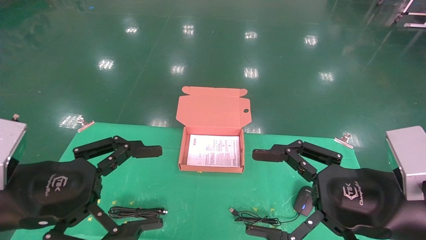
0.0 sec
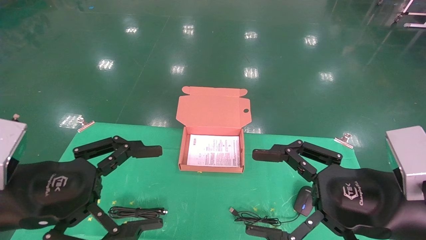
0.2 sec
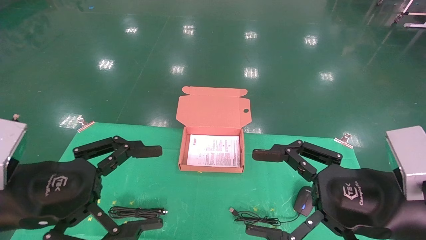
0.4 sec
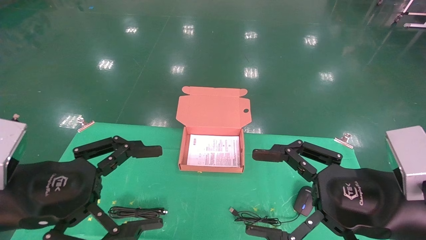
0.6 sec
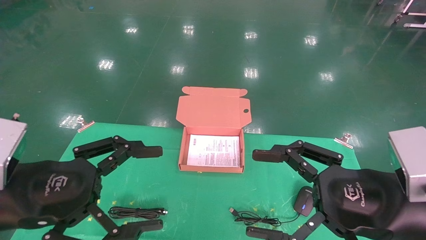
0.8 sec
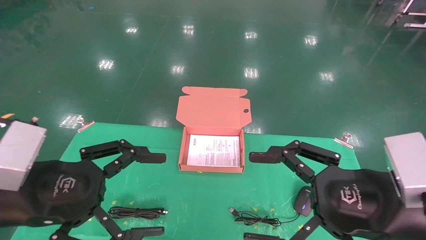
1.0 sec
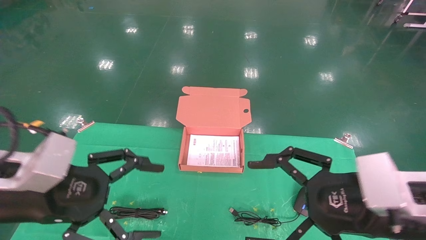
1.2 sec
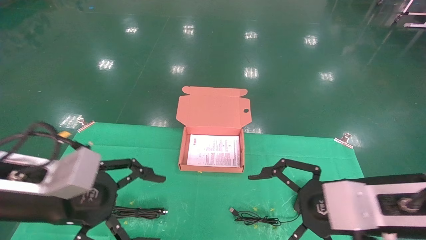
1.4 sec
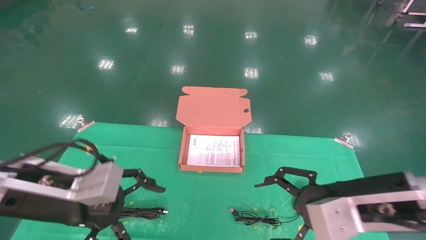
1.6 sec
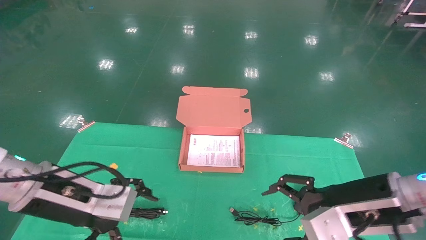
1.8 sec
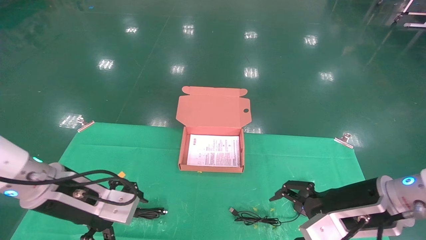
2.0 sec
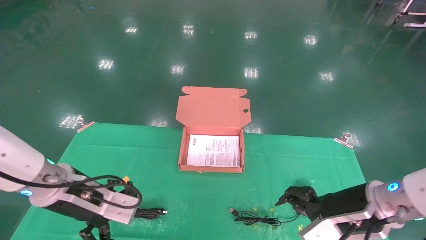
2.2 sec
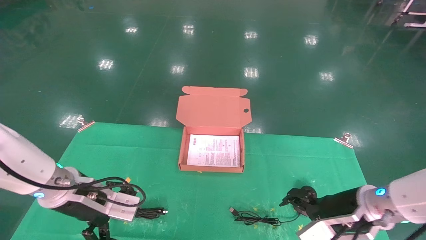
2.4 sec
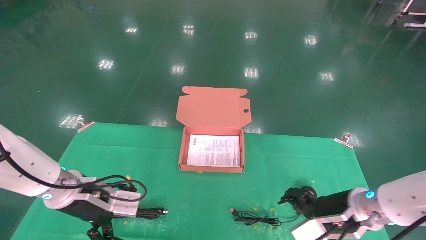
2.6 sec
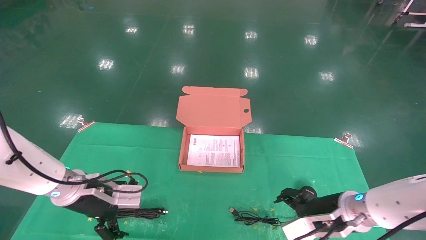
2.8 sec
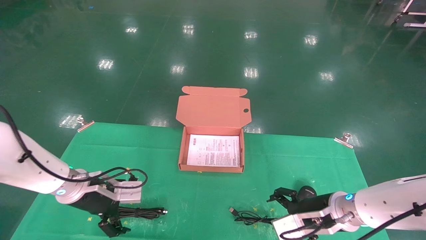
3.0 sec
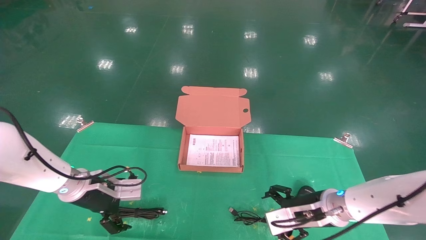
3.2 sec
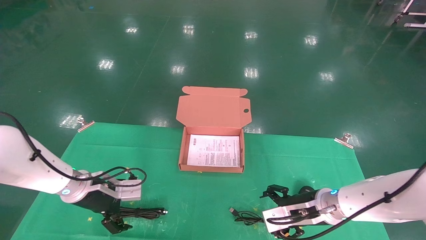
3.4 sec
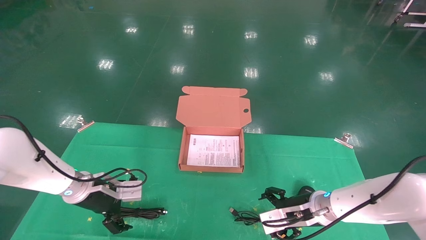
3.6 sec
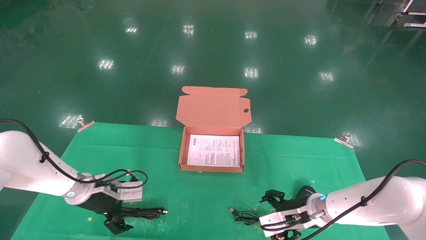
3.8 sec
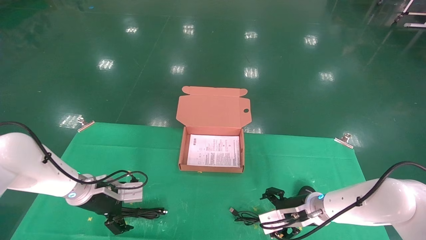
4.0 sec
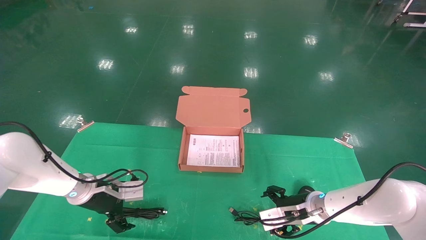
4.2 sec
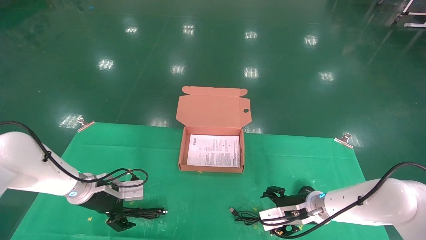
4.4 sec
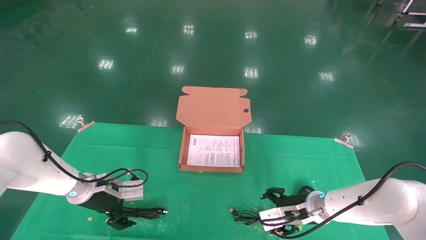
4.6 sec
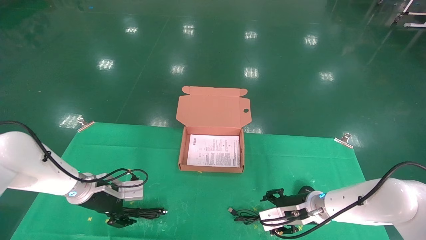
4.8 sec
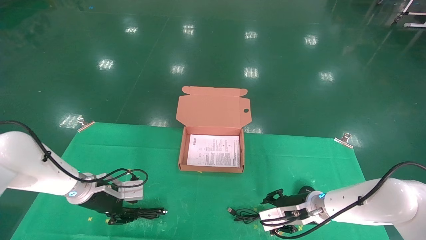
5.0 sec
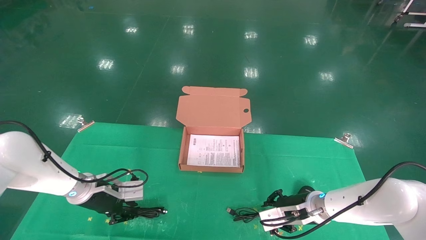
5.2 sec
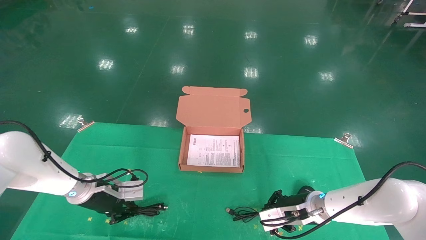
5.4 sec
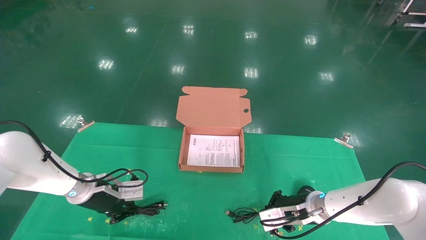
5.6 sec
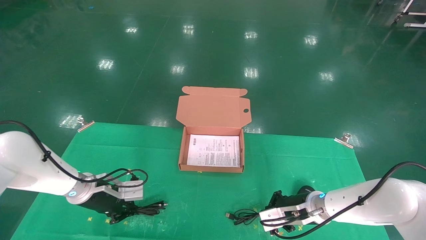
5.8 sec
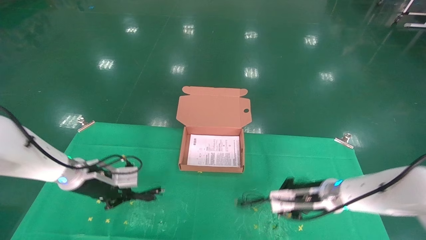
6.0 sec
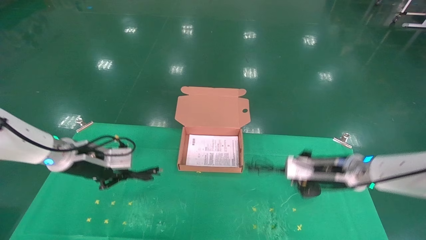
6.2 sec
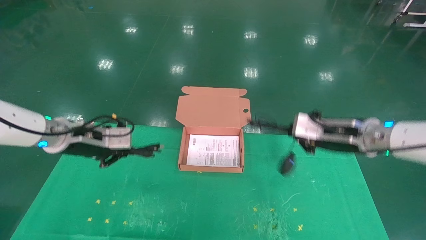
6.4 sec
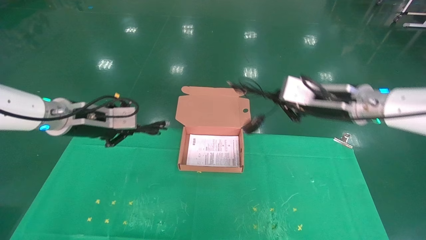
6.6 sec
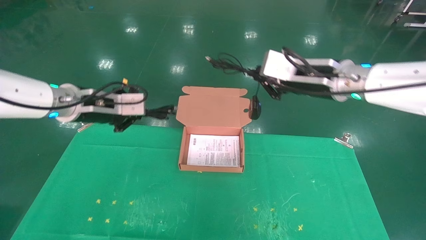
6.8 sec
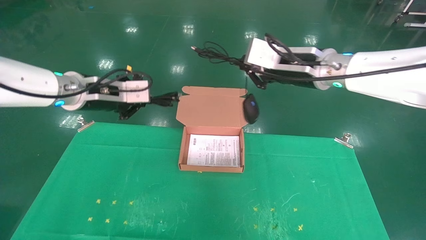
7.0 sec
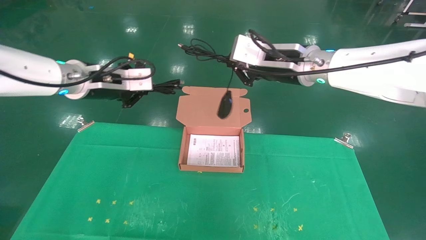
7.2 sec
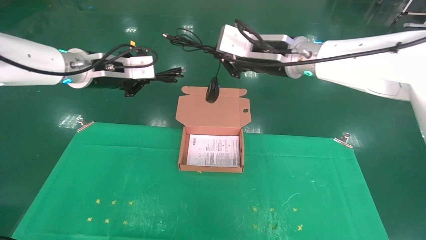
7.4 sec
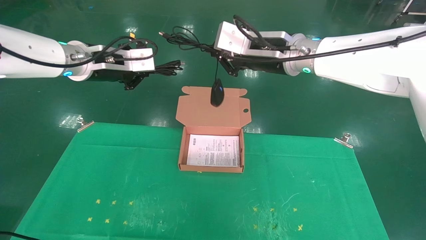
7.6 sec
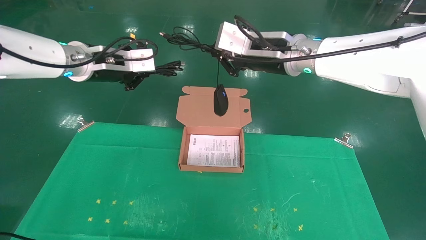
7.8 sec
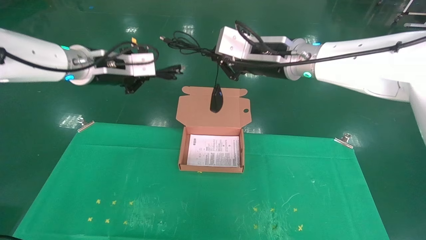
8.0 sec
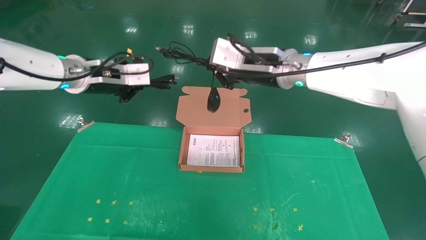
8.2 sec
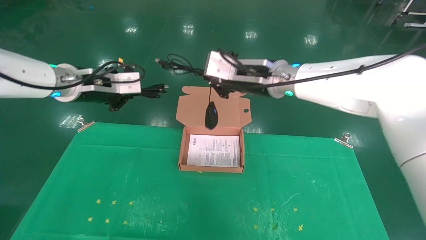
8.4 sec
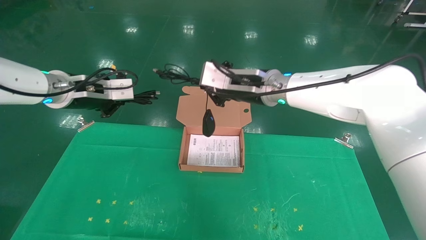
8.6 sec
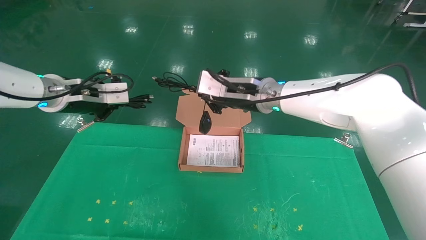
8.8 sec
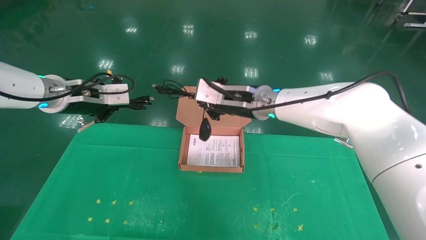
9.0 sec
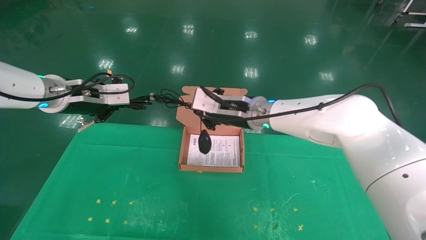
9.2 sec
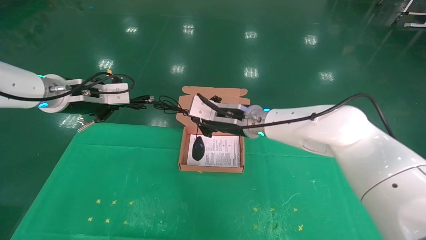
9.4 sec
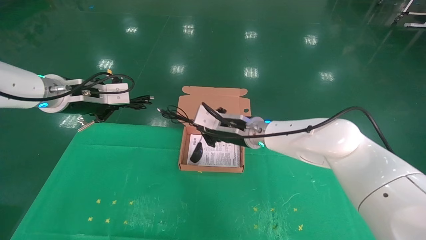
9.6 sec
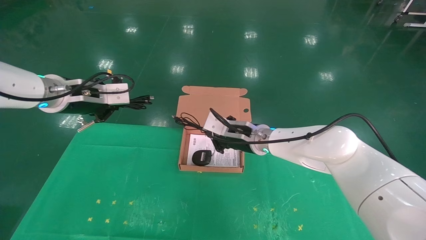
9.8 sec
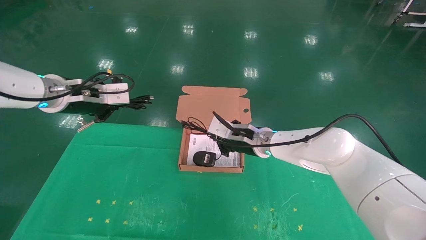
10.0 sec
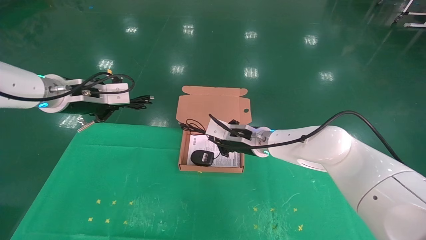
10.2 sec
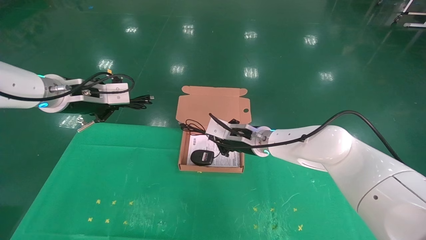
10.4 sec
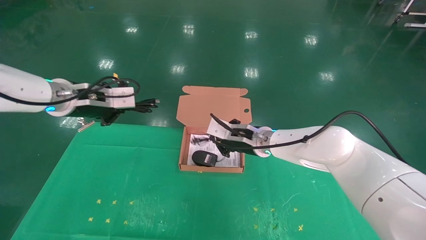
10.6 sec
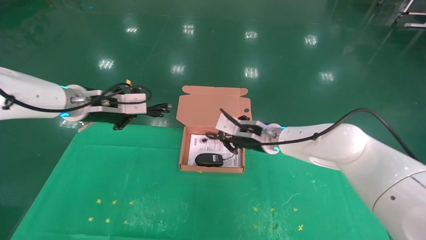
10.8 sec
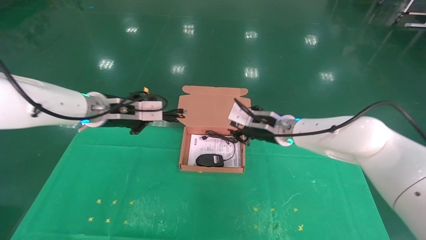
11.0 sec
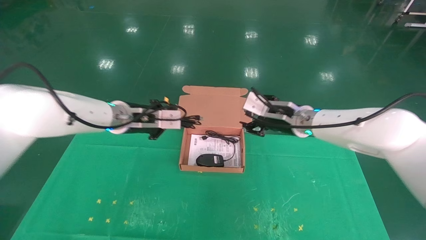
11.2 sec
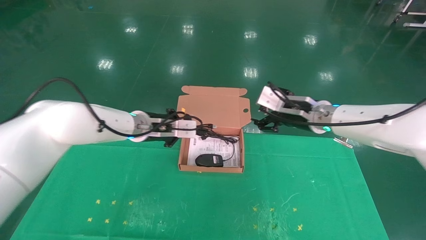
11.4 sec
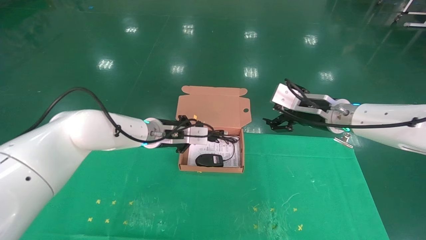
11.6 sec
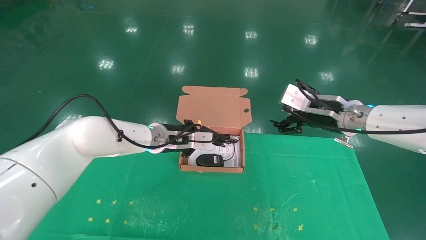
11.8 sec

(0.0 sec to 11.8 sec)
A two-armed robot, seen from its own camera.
Task of the whole recording: grasp data cable left put into box grasp mouse right put into box.
Step, 1.2 sec - 6.6 sec: Grab and pick up both the mouse and power cord from the accessory packaging area at the same time.
0.0 sec - 1.4 sec: The left gripper moves approximately 5 cm.
1.4 sec - 3.0 sec: The two grippers go some 15 cm forward and downward.
3.0 sec - 4.4 sec: The right gripper heads forward and downward, covering some 10 cm, while the left gripper moves approximately 5 cm.
4.4 sec - 6.0 sec: Both grippers move upward, about 5 cm. The right gripper closes up; the left gripper closes.
6.0 sec - 7.4 sec: The left gripper shifts roughly 20 cm upward. The right gripper shifts about 30 cm upward and to the left.
7.4 sec - 8.8 sec: The right gripper travels downward by some 5 cm, while the left gripper moves about 5 cm.
8.8 sec - 10.4 sec: The right gripper shifts roughly 15 cm downward.
10.4 sec - 11.8 sec: The left gripper travels to the right, downward and forward by approximately 20 cm. The right gripper moves to the right and upward, some 20 cm, and opens its fingers.

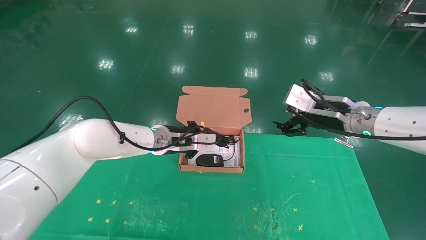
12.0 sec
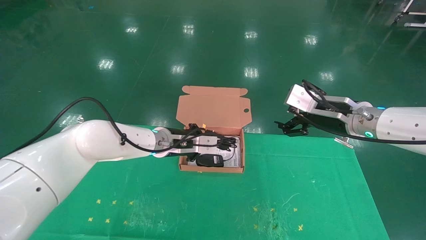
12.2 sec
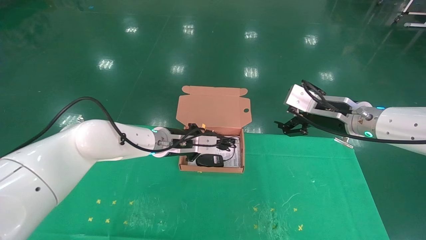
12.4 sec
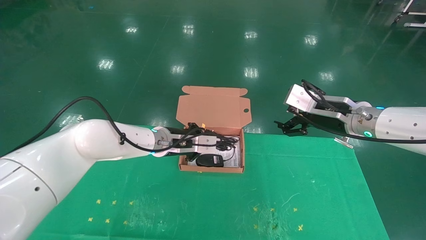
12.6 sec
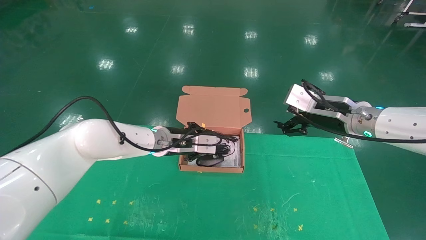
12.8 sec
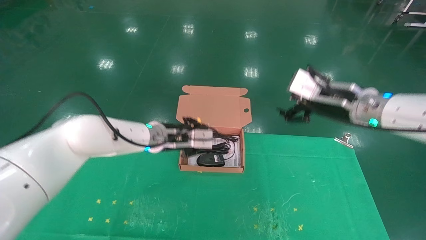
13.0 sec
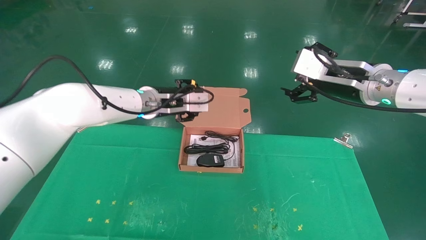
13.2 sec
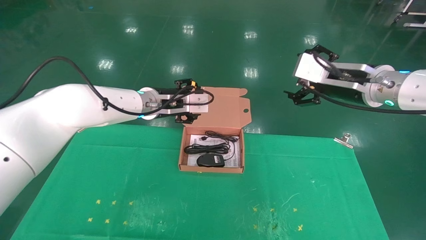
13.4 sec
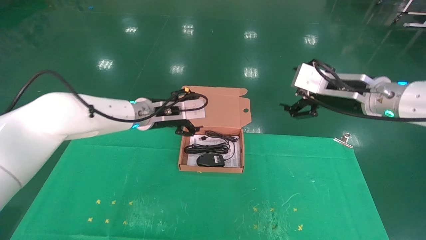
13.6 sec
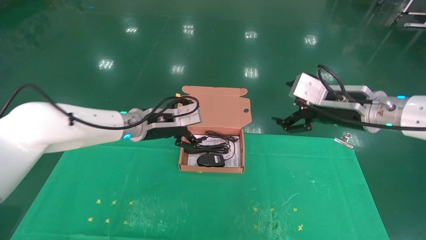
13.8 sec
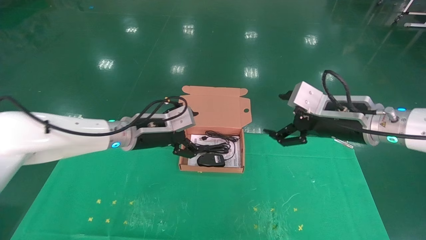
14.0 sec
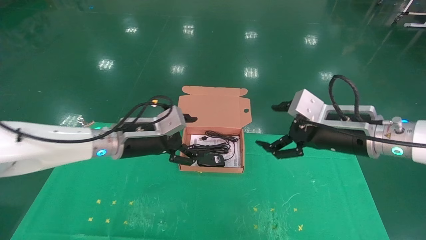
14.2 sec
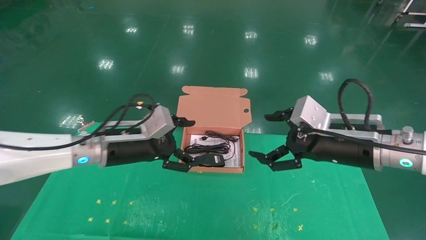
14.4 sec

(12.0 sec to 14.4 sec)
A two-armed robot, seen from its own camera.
Task of the whole recording: grasp data cable left put into box grasp mouse right put into box.
12.0 sec - 13.2 sec: The grippers both shift upward by some 5 cm. The left gripper opens its fingers.
13.2 sec - 14.4 sec: The right gripper heads downward and backward, covering about 10 cm, while the left gripper moves backward and to the left, some 10 cm, and opens its fingers.

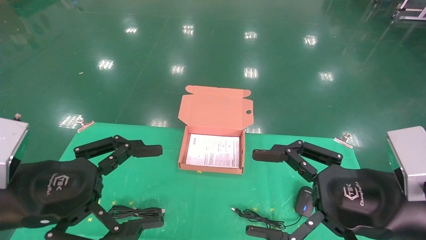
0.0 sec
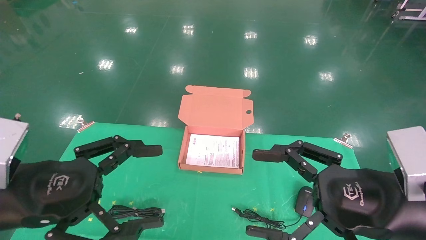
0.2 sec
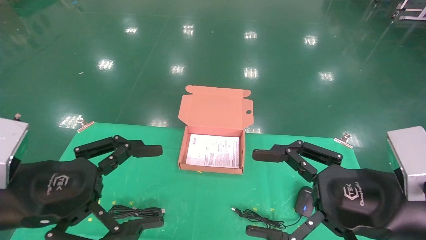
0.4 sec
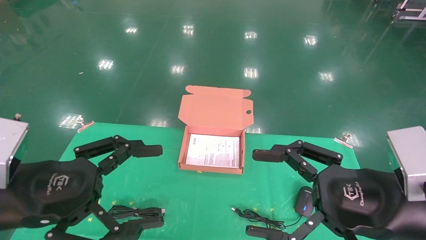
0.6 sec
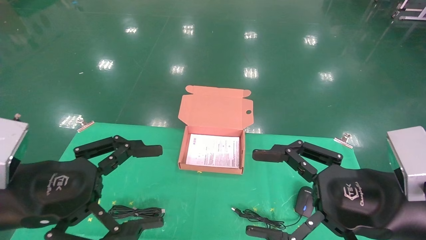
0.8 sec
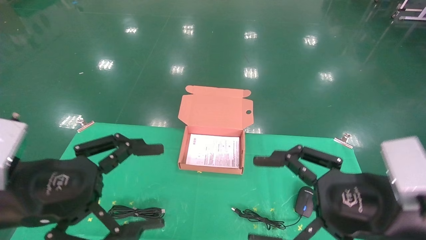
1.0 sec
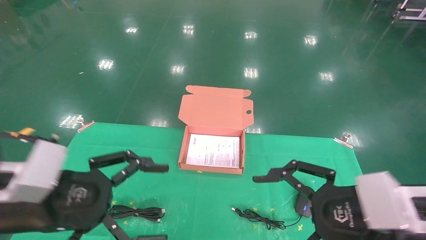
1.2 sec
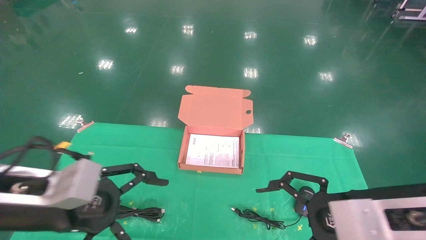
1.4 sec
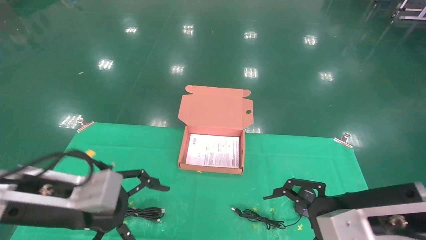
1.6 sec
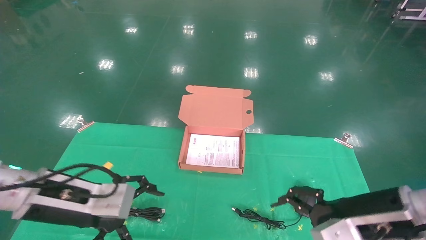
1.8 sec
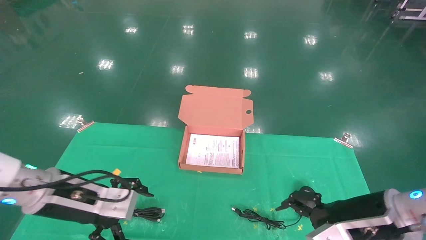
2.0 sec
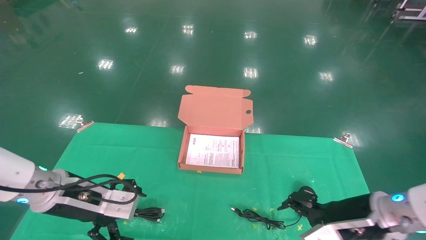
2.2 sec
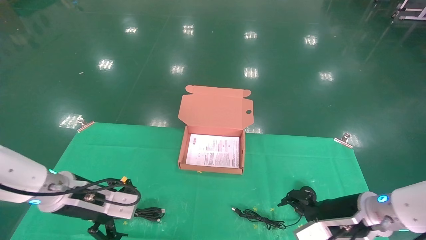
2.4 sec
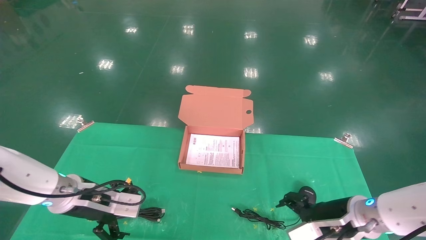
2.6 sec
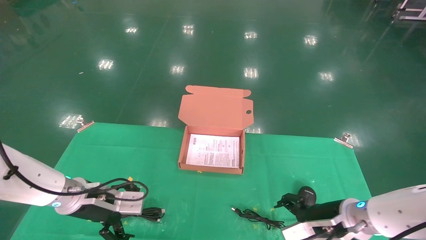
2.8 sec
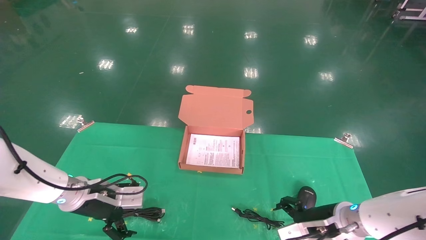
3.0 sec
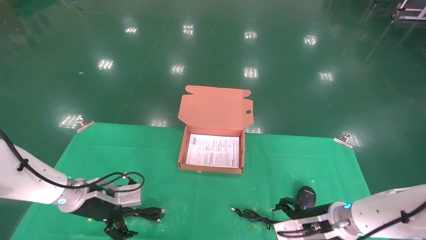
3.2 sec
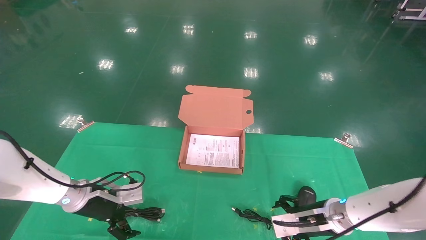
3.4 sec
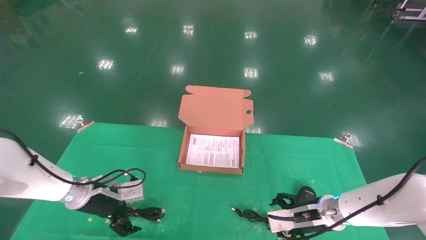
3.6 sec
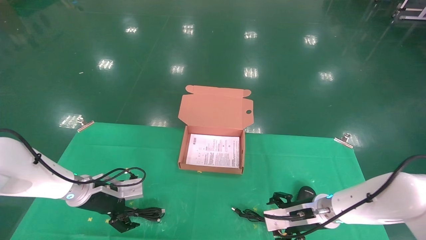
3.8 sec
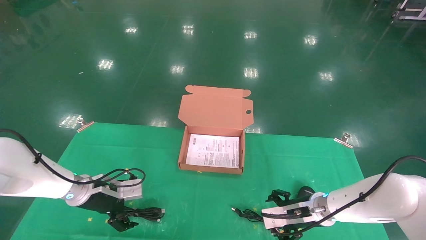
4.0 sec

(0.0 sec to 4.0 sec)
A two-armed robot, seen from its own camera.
Task of the whole recording: grasp data cable left put into box grasp mouse right put into box.
1.4 sec - 2.6 sec: Both grippers travel together forward and downward, some 15 cm.
2.6 sec - 4.0 sec: Both grippers travel together forward and downward, about 10 cm.
